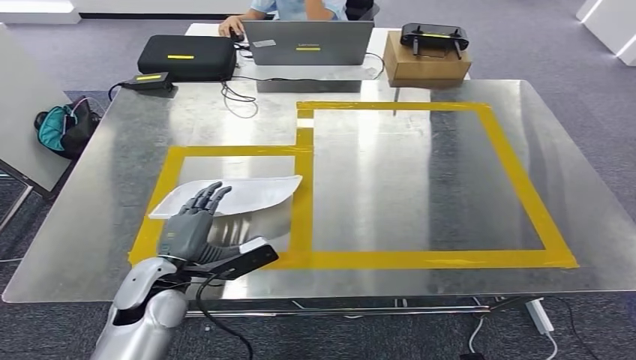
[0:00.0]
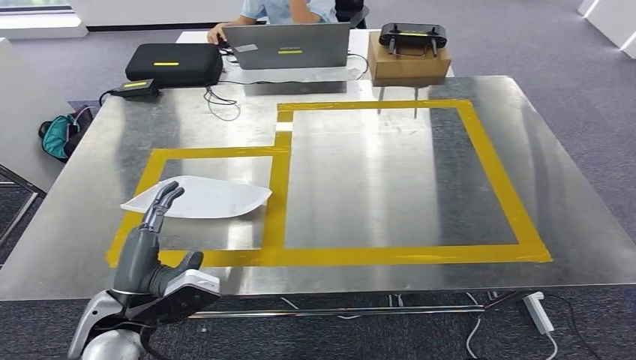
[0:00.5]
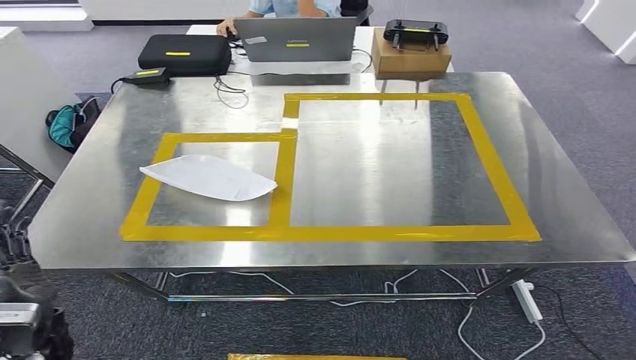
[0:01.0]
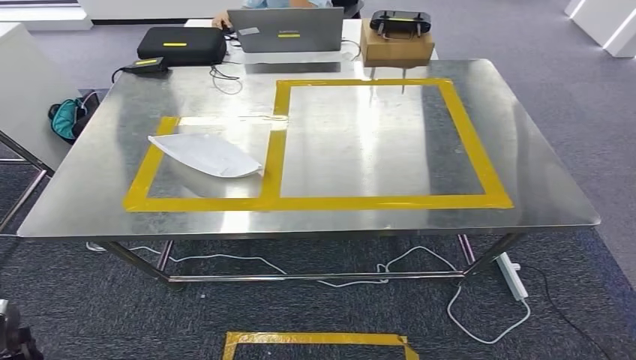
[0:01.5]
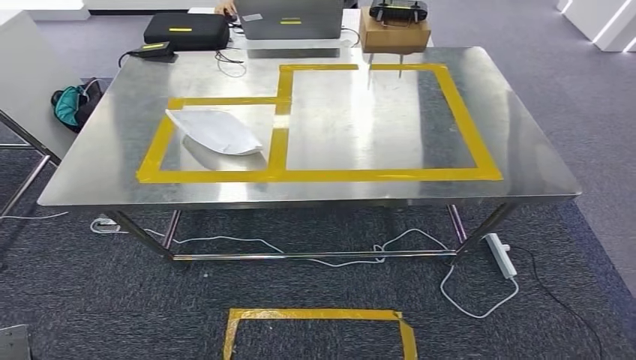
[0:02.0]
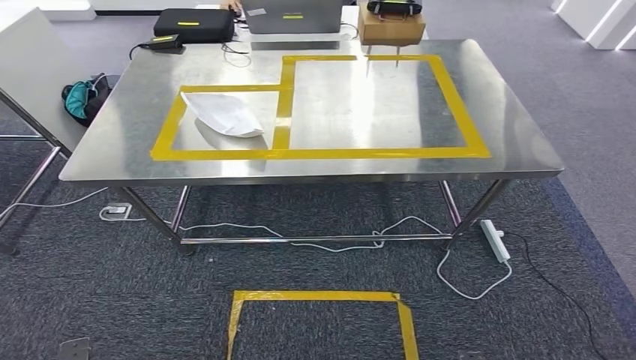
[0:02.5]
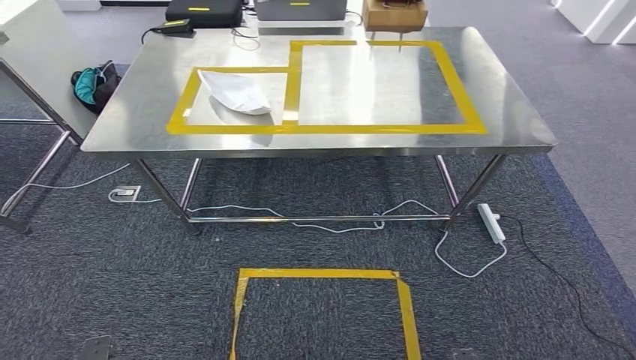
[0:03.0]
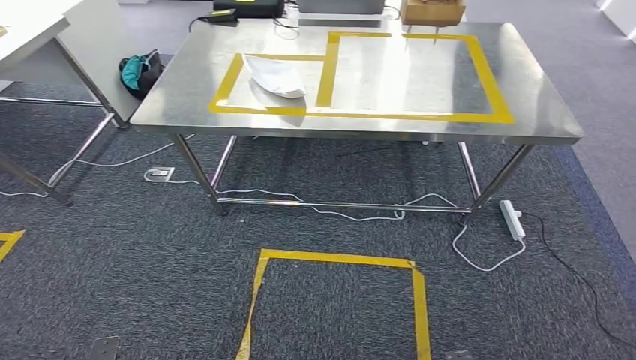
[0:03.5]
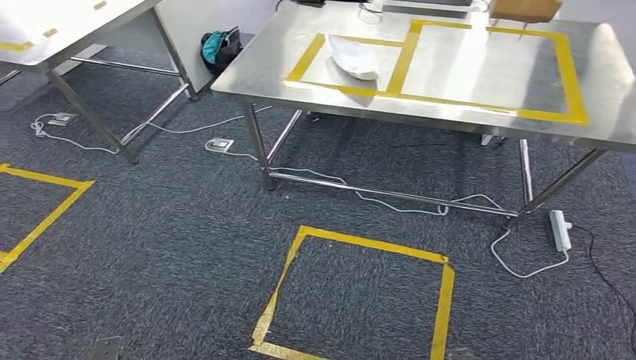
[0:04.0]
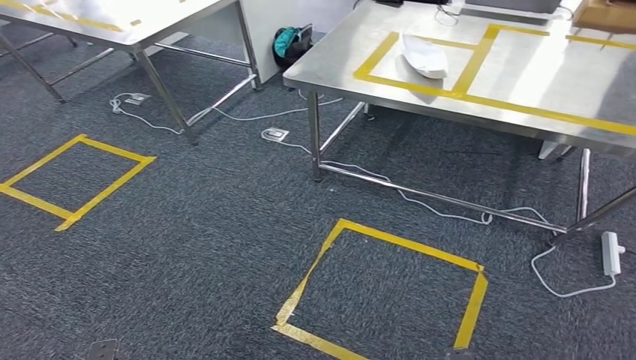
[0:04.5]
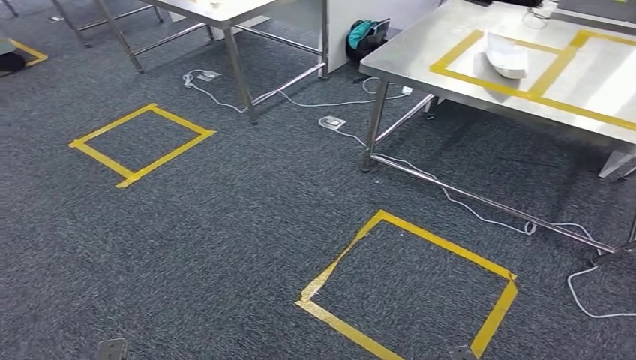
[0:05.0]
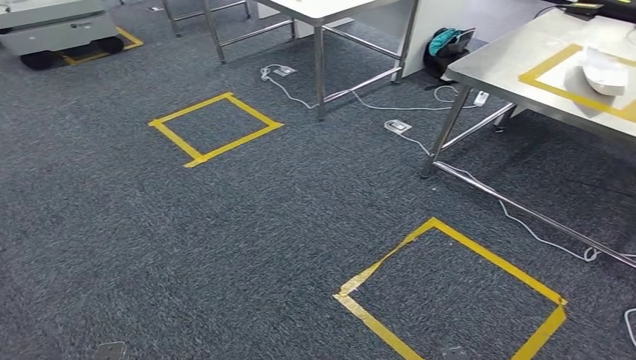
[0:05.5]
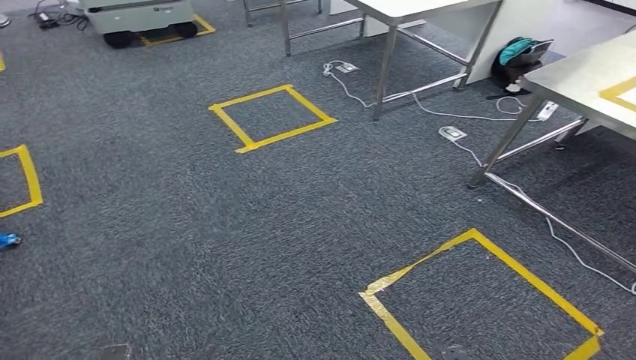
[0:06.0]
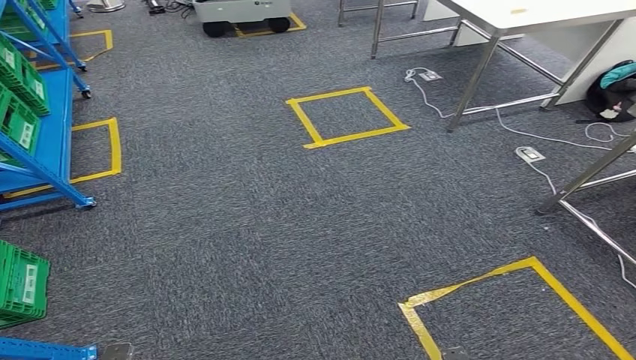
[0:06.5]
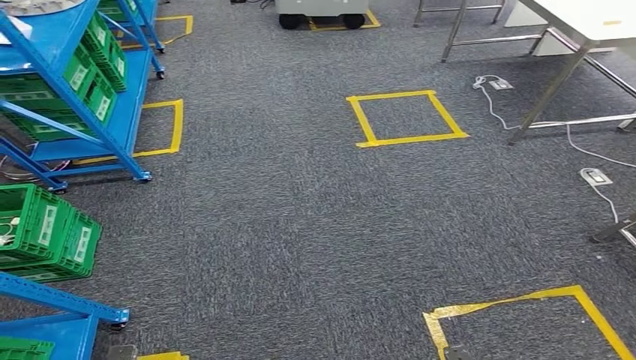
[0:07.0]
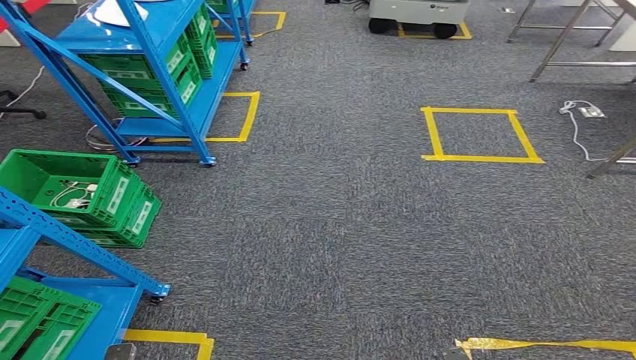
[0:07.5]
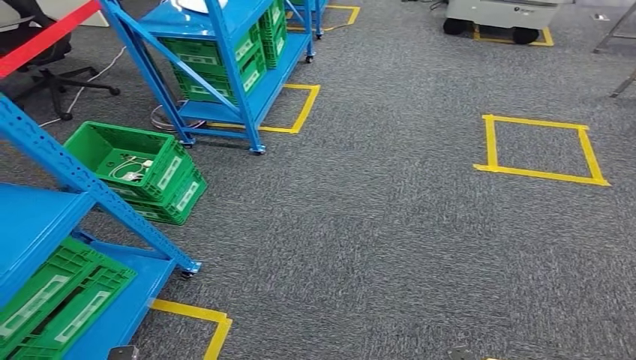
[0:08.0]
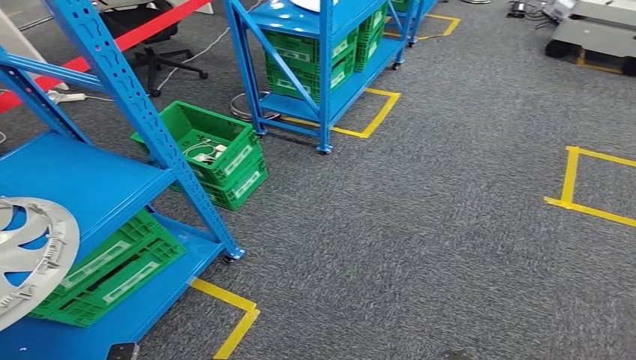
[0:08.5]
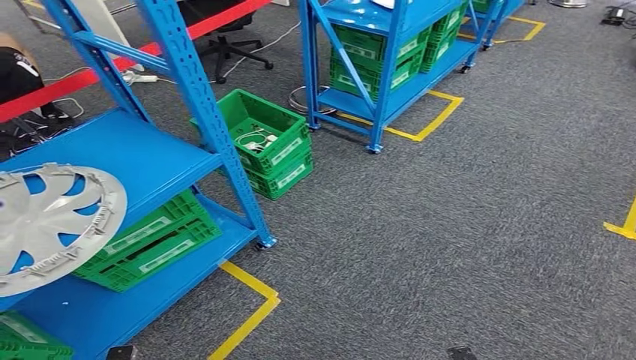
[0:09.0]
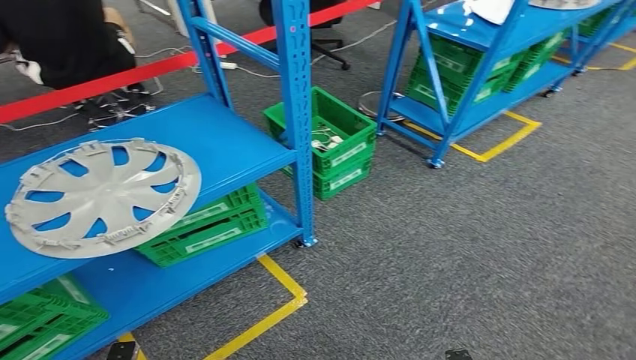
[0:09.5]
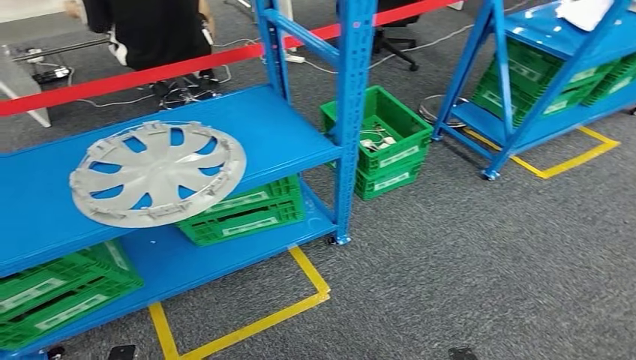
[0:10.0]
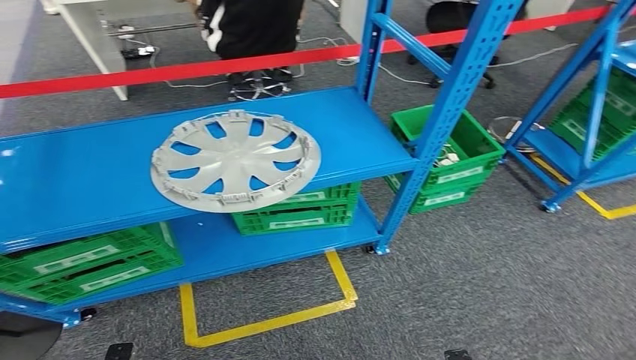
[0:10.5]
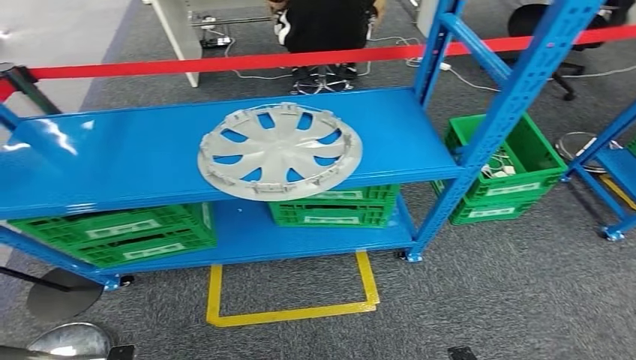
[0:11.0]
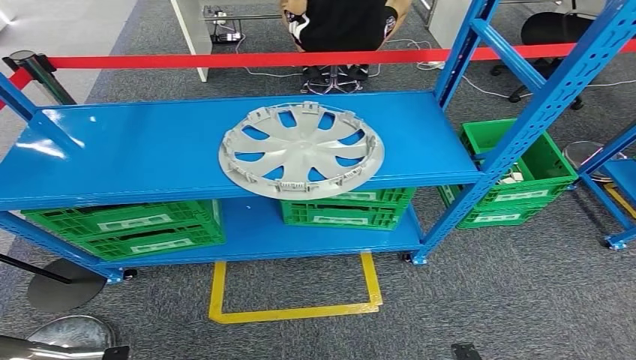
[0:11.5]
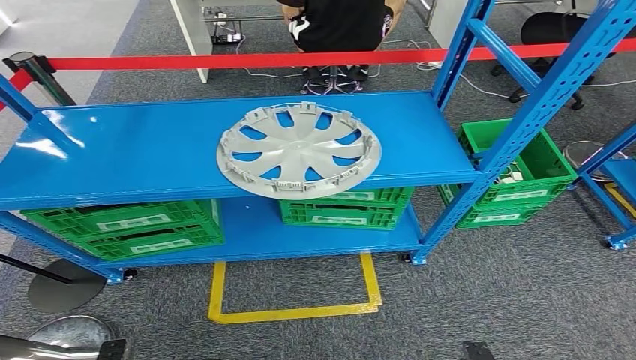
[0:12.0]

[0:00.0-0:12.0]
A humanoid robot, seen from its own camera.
Step, 0:00.0 to 0:02.0: Insert the small parts into the corresponding slots on the workbench.
Step, 0:02.5 to 0:11.5: Return to the initial position at the workbench.
